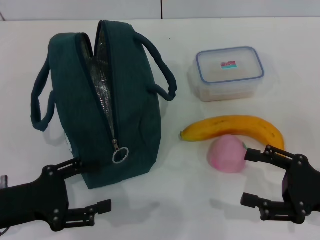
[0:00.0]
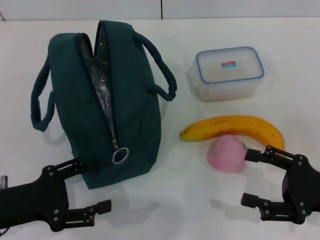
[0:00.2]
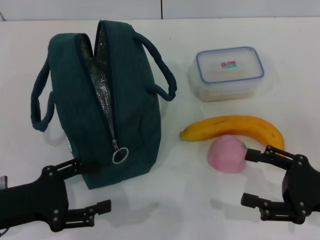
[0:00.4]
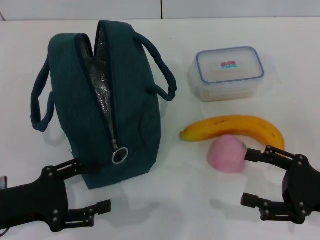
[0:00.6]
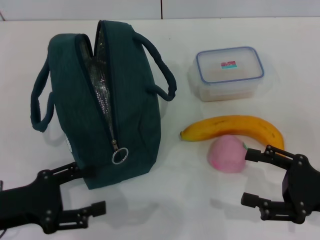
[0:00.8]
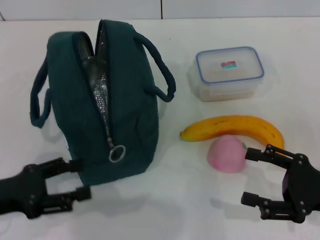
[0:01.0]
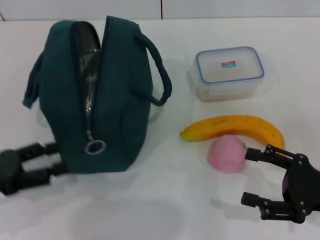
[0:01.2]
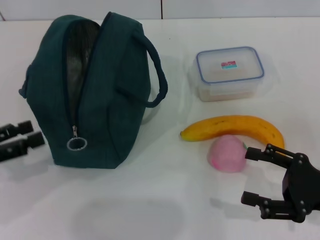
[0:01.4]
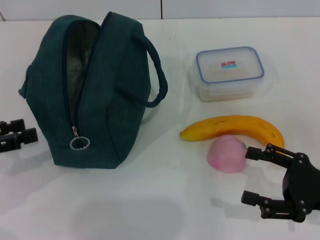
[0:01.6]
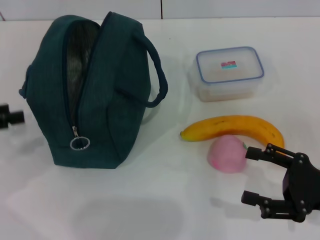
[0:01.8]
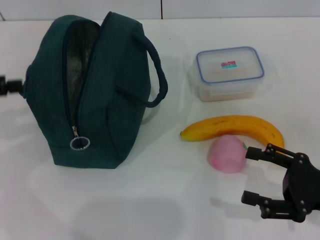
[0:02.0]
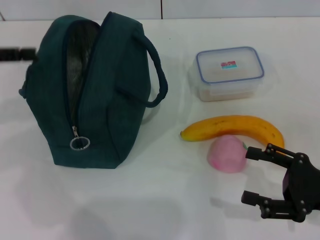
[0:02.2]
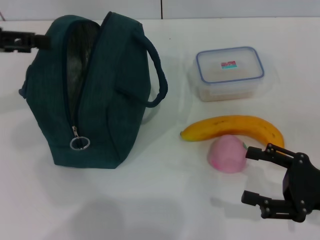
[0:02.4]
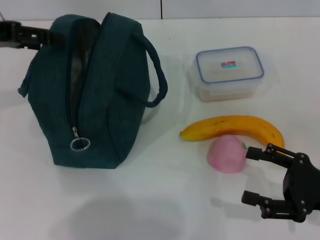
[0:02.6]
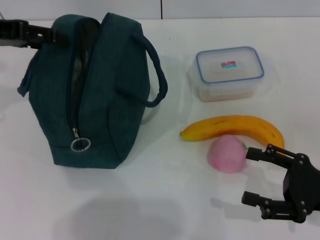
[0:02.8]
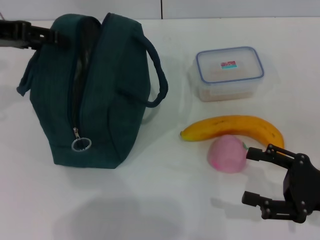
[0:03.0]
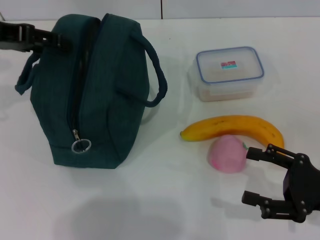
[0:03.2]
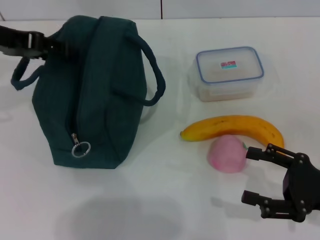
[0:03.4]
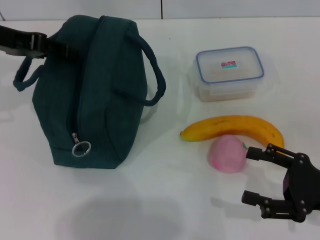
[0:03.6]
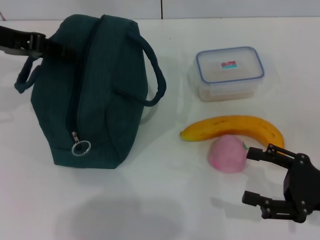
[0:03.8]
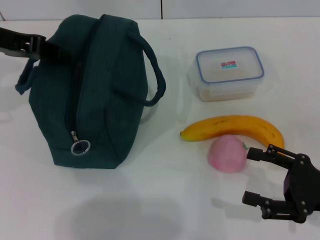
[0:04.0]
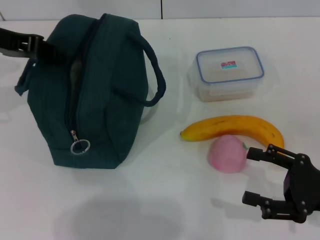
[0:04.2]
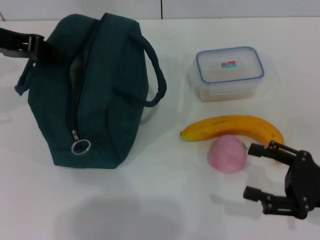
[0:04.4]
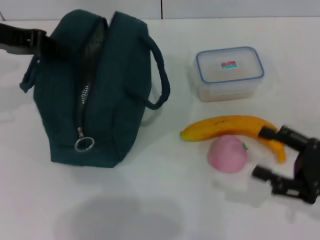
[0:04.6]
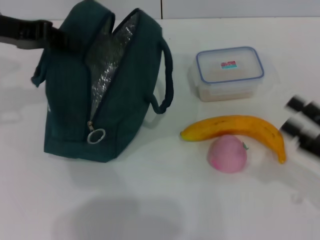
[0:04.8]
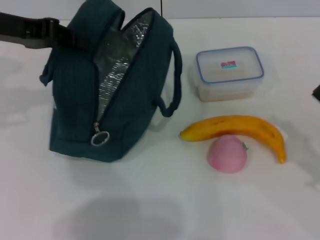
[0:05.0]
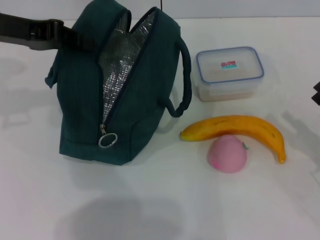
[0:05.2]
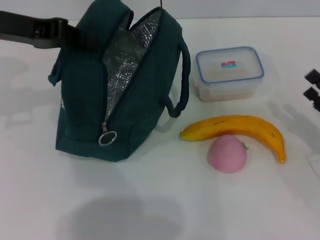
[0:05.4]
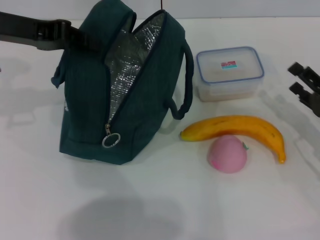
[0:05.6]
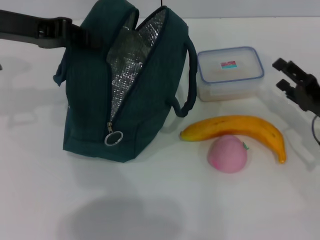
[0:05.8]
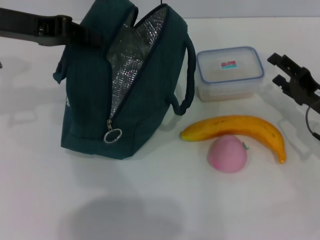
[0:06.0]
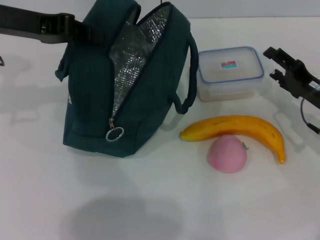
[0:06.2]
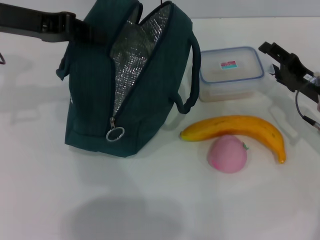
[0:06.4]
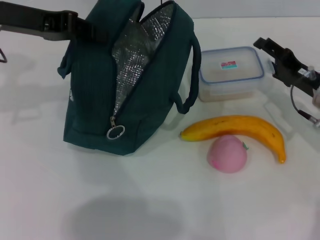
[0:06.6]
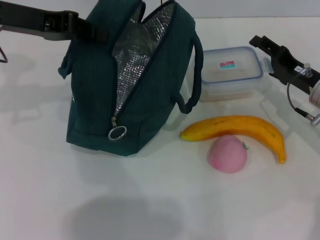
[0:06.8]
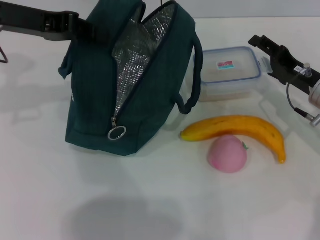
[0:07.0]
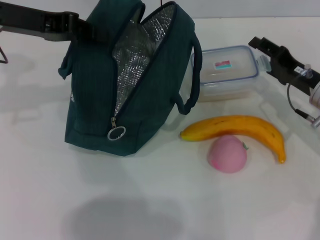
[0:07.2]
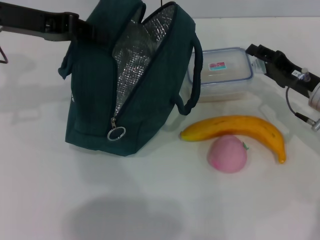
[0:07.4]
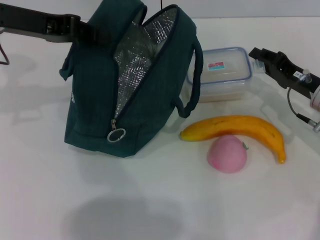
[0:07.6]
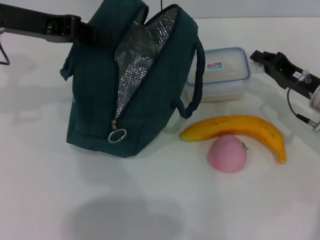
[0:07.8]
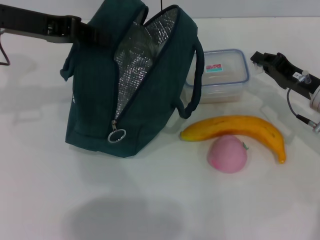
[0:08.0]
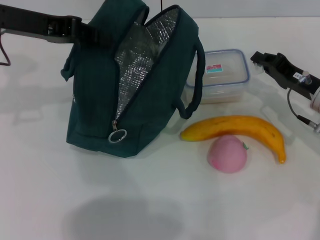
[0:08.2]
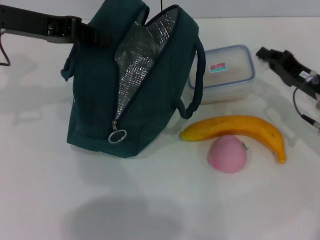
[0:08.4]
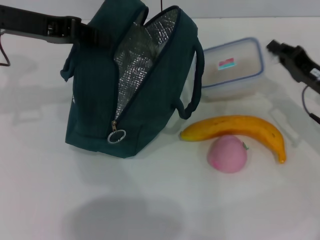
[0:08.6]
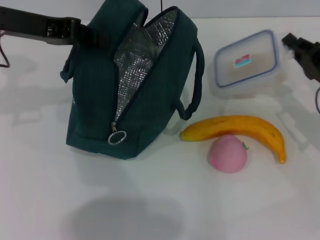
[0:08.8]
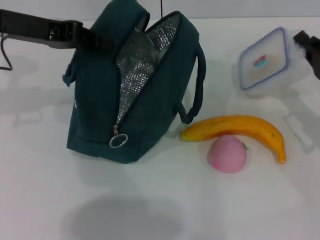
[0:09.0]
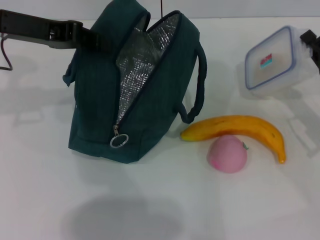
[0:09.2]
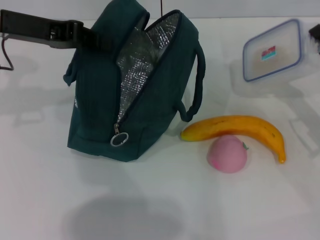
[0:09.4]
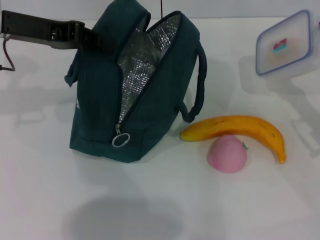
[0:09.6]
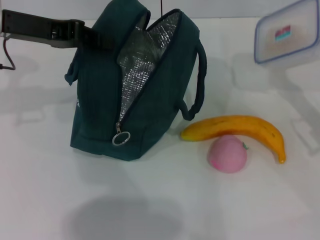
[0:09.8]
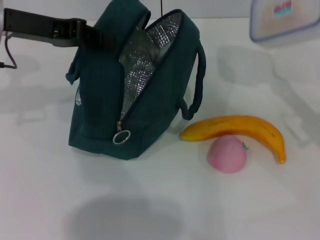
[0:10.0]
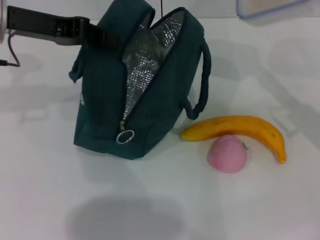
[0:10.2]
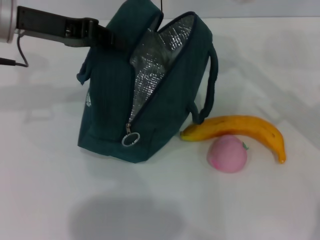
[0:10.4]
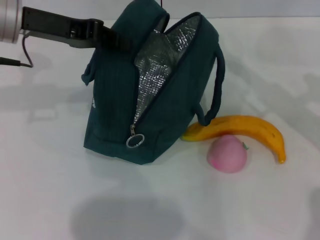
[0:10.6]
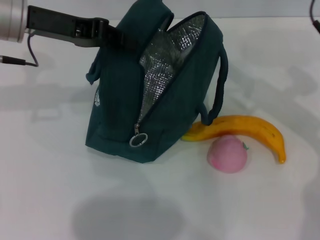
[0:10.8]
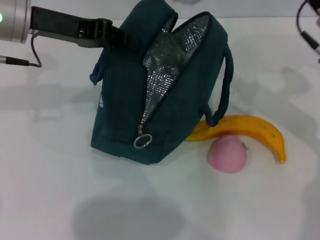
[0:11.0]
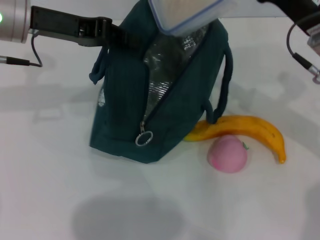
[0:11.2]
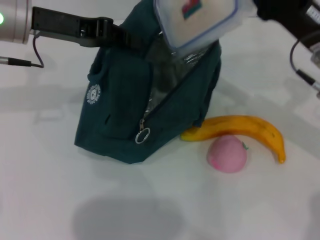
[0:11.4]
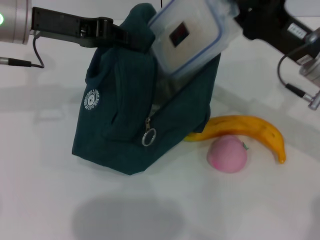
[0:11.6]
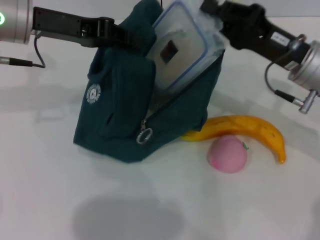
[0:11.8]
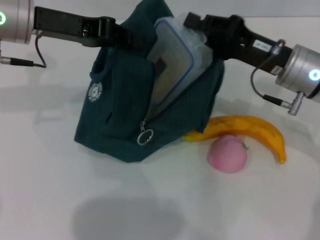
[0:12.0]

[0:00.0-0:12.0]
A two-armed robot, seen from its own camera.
Step, 0:00.0 to 0:04.4: Hold the lunch bag with your left hand.
Step, 0:04.6 to 0:08.0: Pick up the lunch box with your right hand.
0:00.0 to 0:01.6: The left gripper is displaced to the left and upward by about 10 cm.
0:01.6 to 0:03.0: The left gripper heads forward, upward and to the right, covering approximately 20 cm.
0:03.0 to 0:04.4: The left gripper closes up.
0:04.4 to 0:06.0: The right gripper moves forward, about 10 cm.
0:06.0 to 0:07.6: The right gripper closes up.
0:07.6 to 0:09.0: The right gripper changes place by approximately 5 cm, and closes its fingers.
0:09.0 to 0:10.4: The right gripper shifts approximately 10 cm upward.
0:10.4 to 0:12.0: The right gripper travels to the left by some 10 cm.

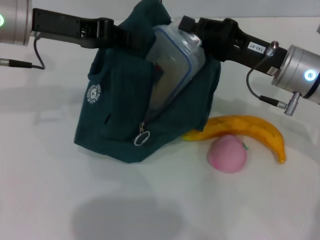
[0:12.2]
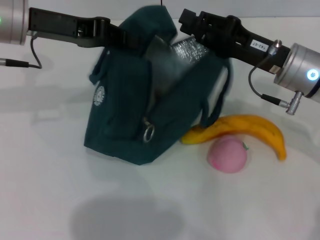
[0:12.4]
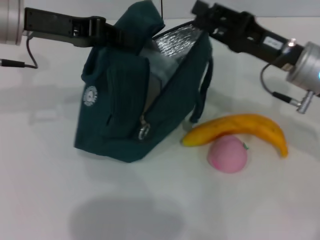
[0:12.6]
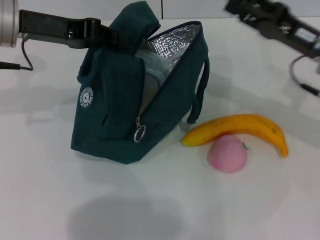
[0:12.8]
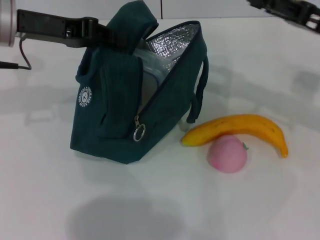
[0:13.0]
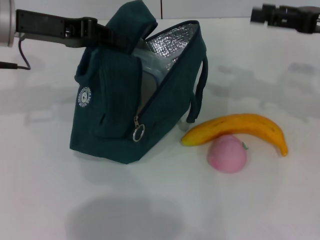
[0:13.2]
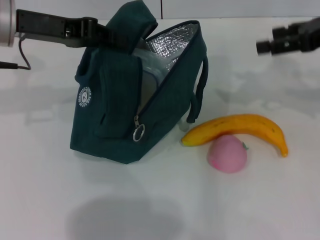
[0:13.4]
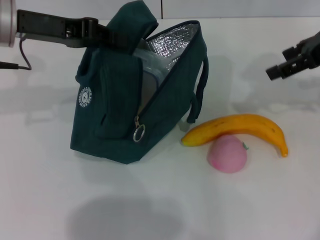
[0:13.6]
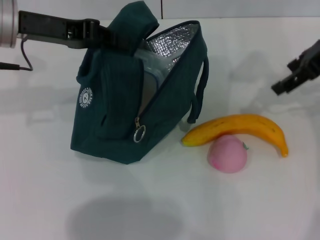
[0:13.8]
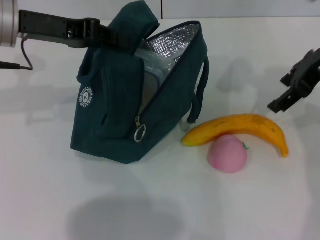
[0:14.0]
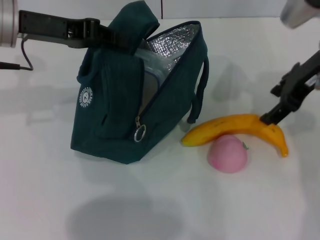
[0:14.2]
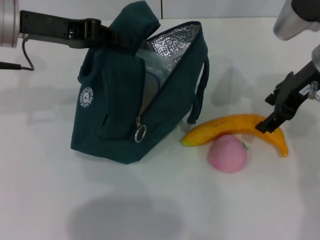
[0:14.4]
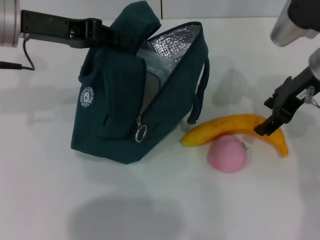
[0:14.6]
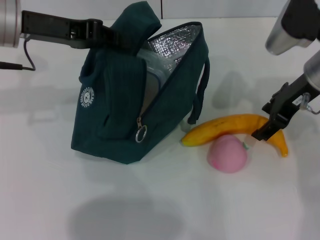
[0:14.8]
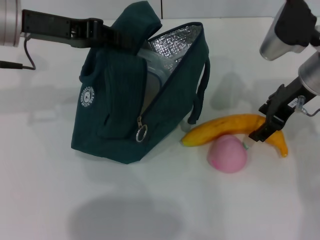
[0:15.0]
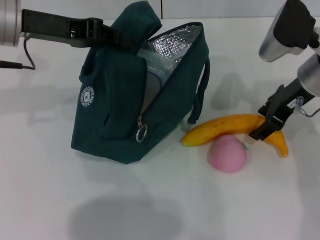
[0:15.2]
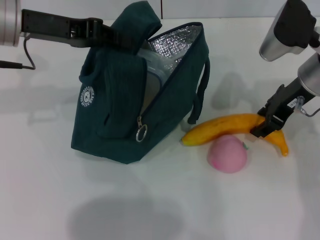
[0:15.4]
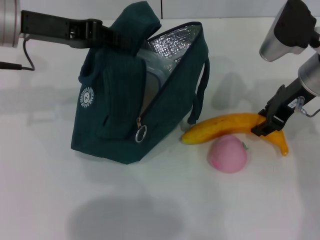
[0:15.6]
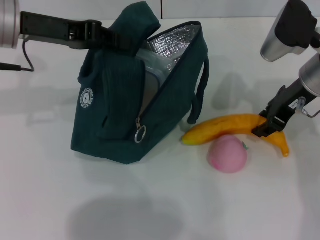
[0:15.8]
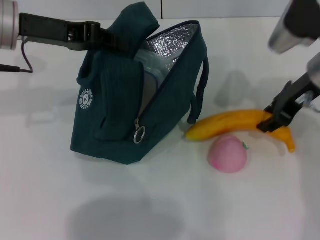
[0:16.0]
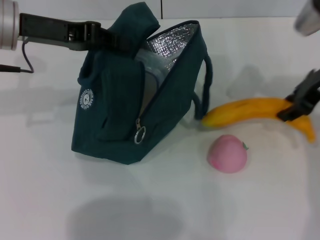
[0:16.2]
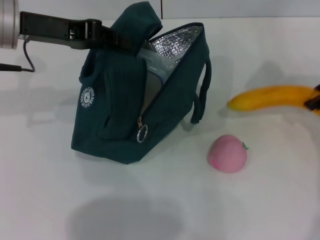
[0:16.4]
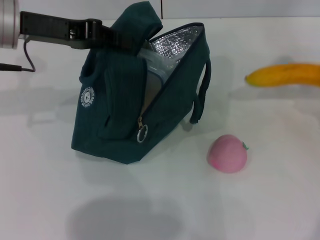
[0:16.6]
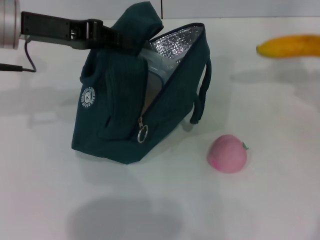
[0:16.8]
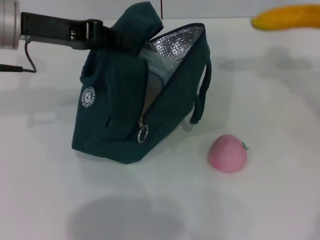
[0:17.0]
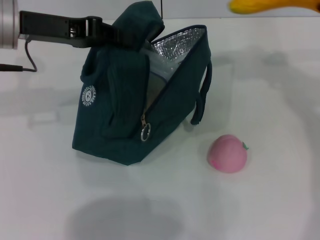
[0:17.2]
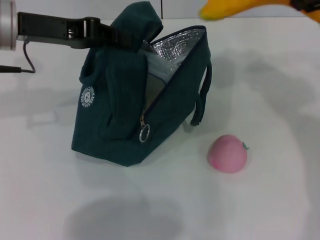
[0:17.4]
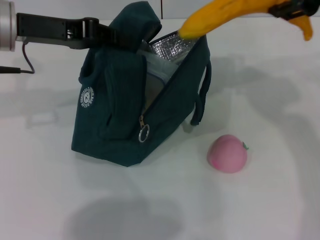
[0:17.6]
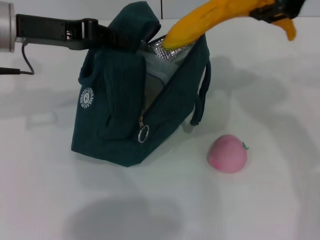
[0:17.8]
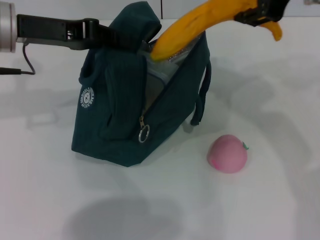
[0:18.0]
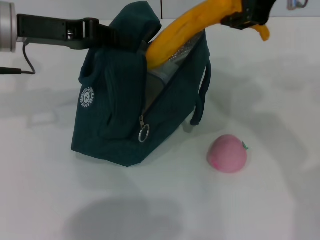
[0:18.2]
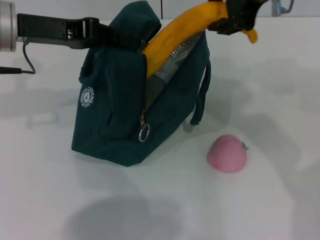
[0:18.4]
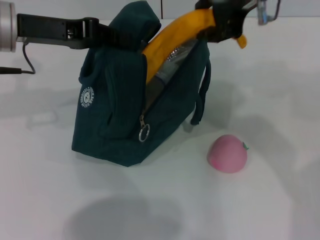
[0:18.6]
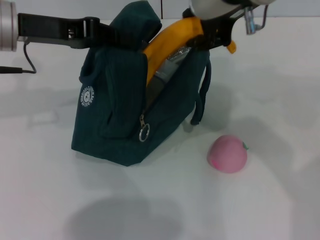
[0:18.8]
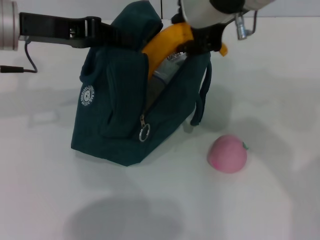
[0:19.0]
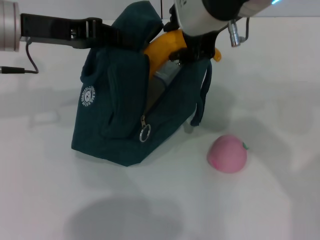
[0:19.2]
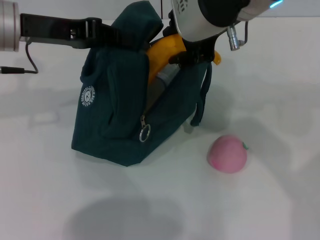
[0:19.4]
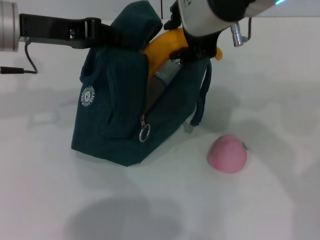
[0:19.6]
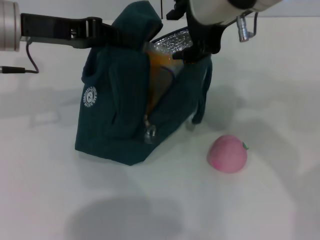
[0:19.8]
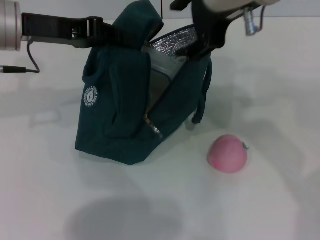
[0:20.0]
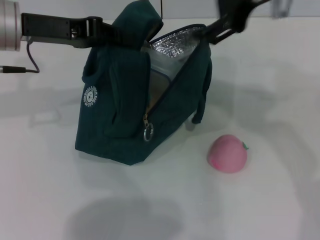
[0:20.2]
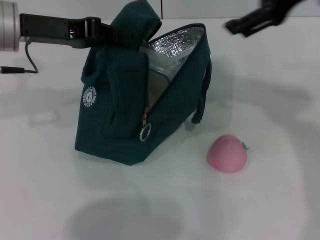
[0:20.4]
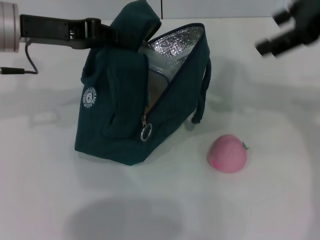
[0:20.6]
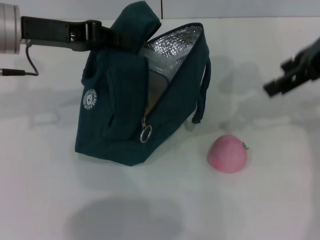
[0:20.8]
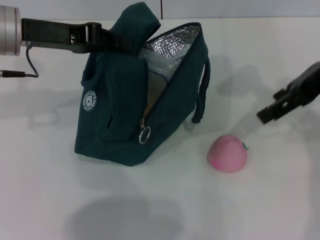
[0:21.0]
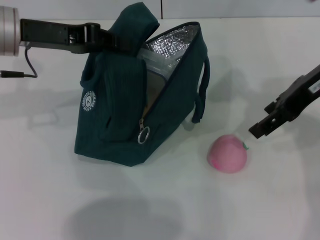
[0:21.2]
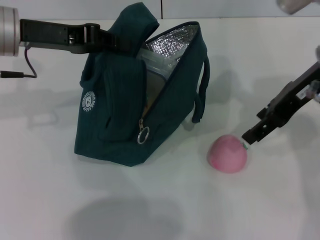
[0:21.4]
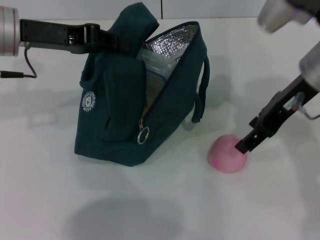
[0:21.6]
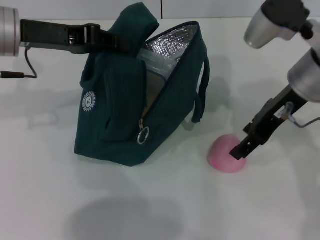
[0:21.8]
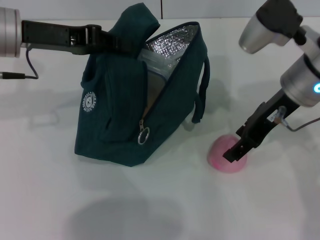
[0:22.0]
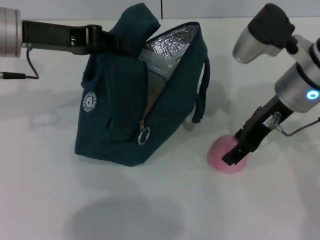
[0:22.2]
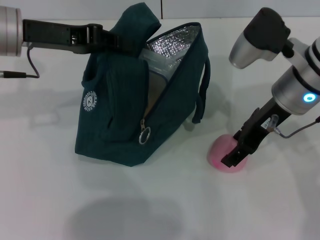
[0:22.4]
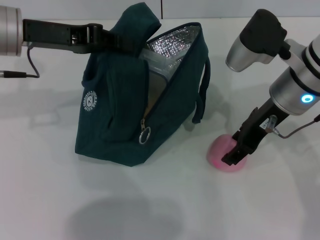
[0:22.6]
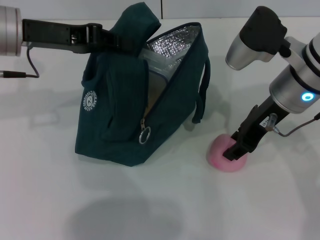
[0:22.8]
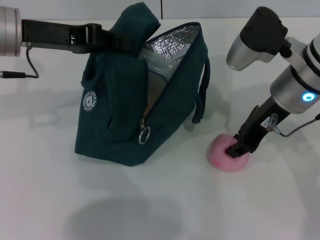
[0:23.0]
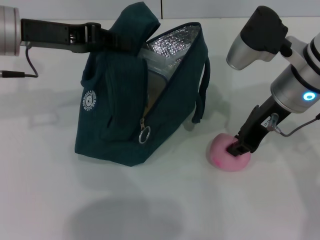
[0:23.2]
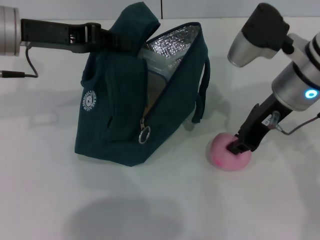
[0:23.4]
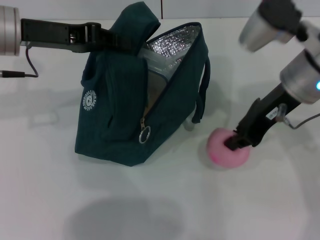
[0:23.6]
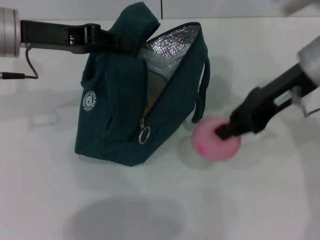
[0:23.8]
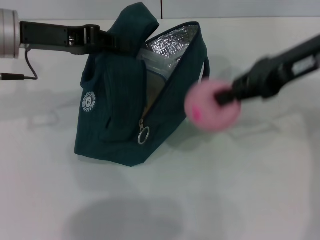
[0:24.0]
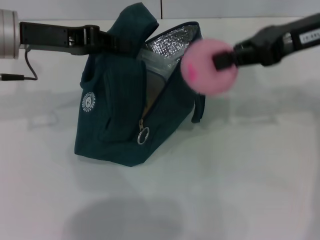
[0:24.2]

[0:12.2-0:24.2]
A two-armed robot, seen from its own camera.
Step, 0:12.6 to 0:15.6: Take the banana with your right hand.
Step, 0:15.8 to 0:20.4: Put the banana into the lunch bag with your right hand.
Step, 0:20.6 to 0:23.2: Grab the peach with your right hand.
0:12.2 to 0:13.8: The right gripper goes about 15 cm upward and to the right, and opens.
0:13.8 to 0:15.2: The right gripper heads downward, covering approximately 10 cm.
0:15.2 to 0:16.6: The right gripper shifts about 15 cm to the right and upward.
0:16.6 to 0:18.2: The right gripper goes approximately 20 cm to the left and upward.
0:18.2 to 0:19.8: The right gripper moves some 5 cm.
0:19.8 to 0:21.2: The right gripper goes roughly 15 cm to the right and downward.
0:21.2 to 0:22.6: The right gripper moves downward and to the left, roughly 10 cm.
0:22.6 to 0:24.2: The right gripper is displaced upward and to the right by some 10 cm, and closes its fingers.
